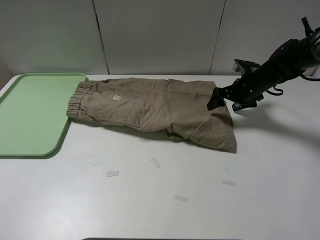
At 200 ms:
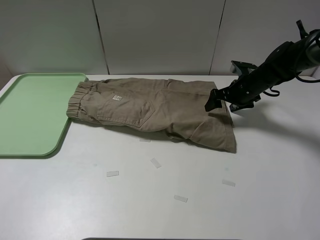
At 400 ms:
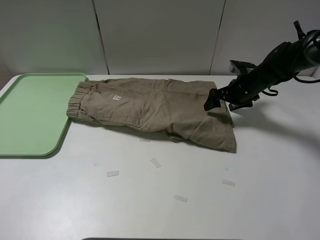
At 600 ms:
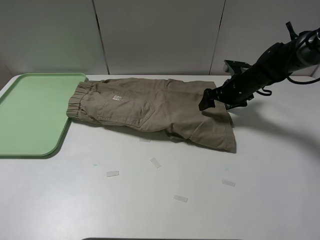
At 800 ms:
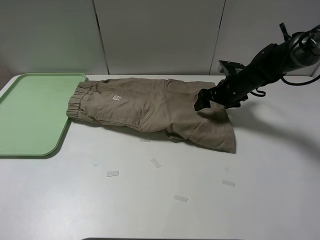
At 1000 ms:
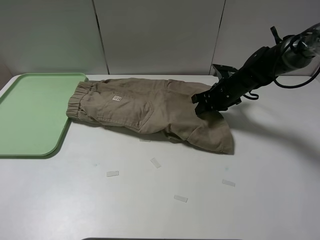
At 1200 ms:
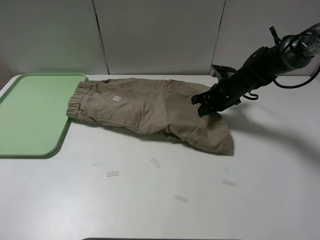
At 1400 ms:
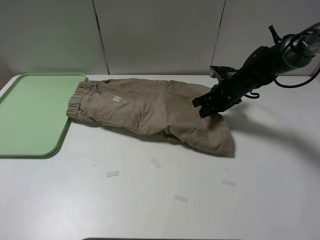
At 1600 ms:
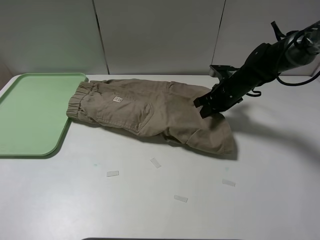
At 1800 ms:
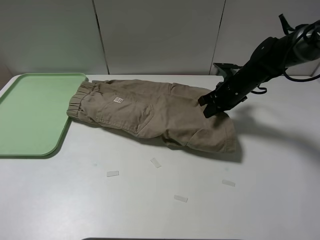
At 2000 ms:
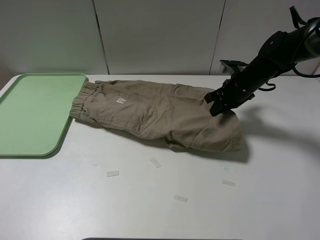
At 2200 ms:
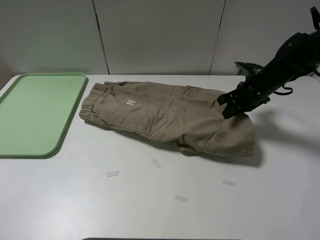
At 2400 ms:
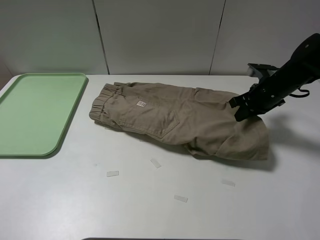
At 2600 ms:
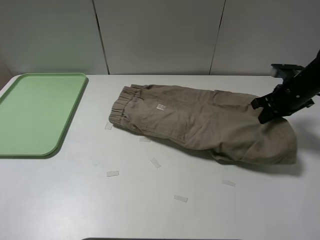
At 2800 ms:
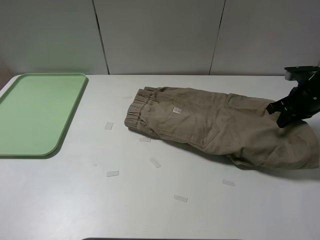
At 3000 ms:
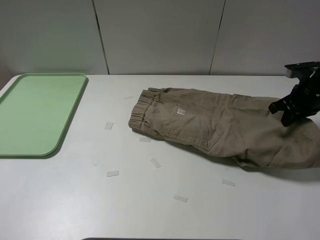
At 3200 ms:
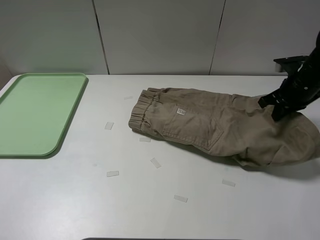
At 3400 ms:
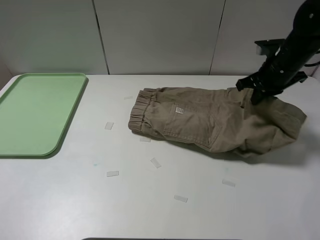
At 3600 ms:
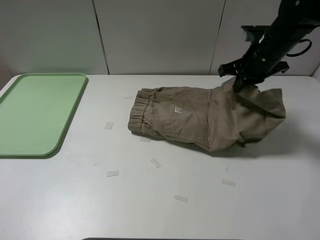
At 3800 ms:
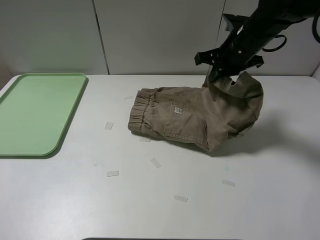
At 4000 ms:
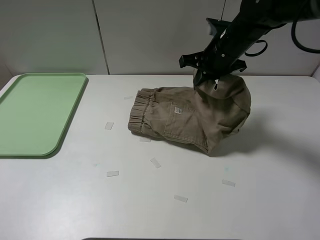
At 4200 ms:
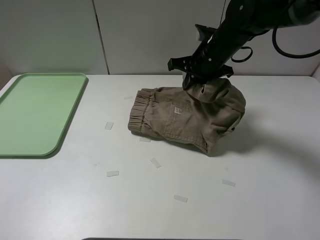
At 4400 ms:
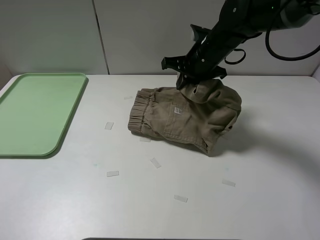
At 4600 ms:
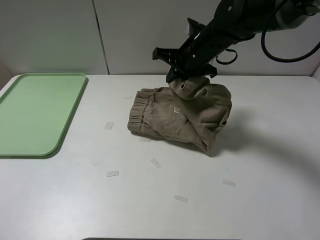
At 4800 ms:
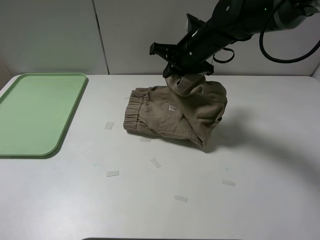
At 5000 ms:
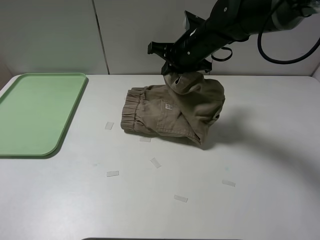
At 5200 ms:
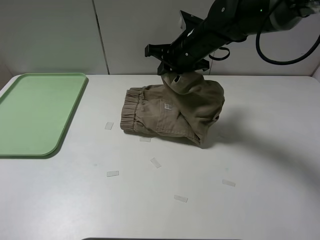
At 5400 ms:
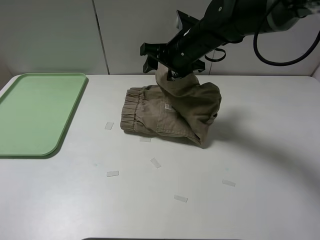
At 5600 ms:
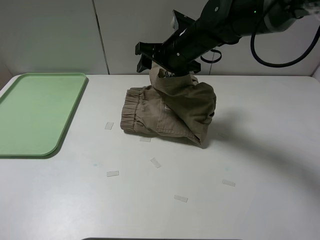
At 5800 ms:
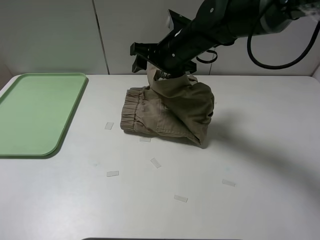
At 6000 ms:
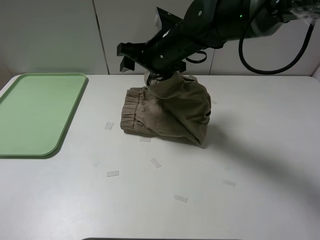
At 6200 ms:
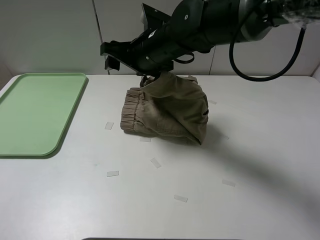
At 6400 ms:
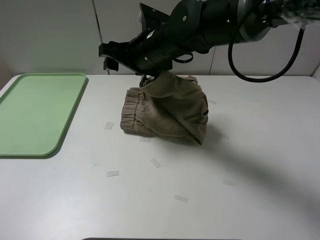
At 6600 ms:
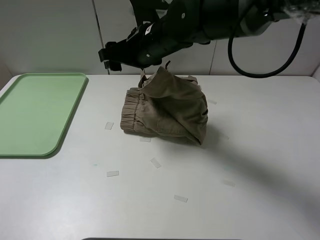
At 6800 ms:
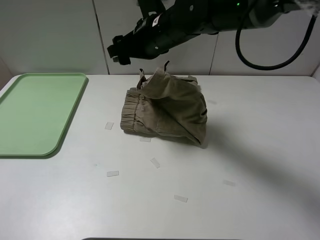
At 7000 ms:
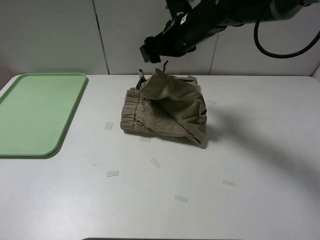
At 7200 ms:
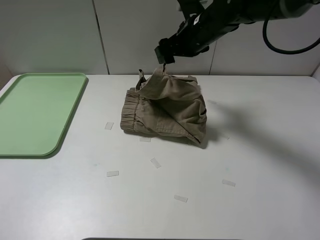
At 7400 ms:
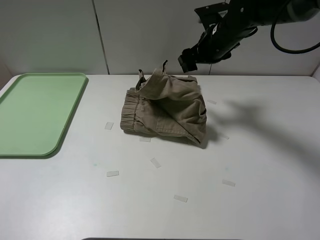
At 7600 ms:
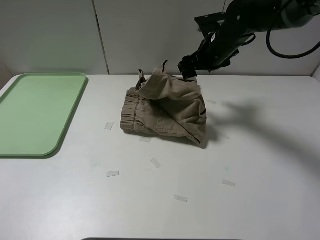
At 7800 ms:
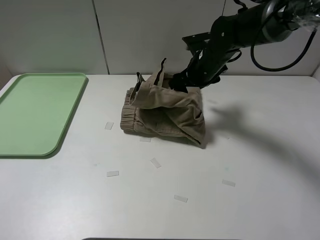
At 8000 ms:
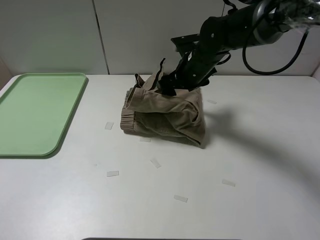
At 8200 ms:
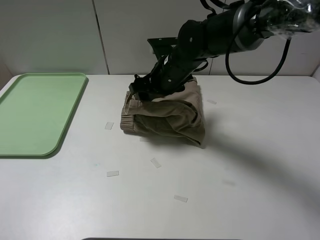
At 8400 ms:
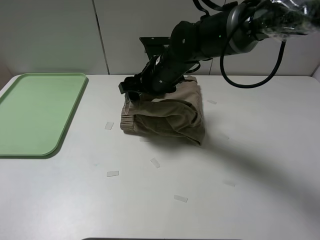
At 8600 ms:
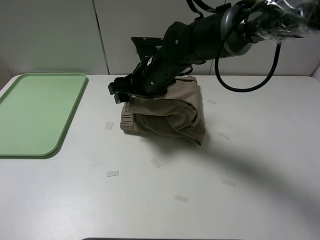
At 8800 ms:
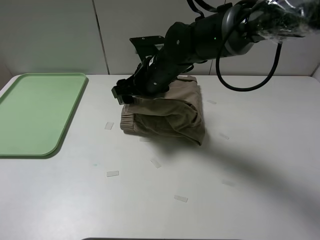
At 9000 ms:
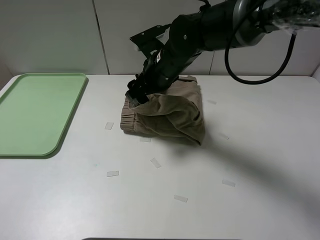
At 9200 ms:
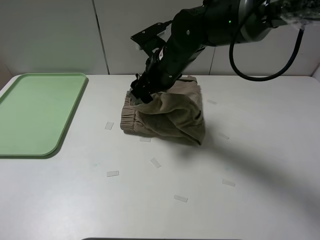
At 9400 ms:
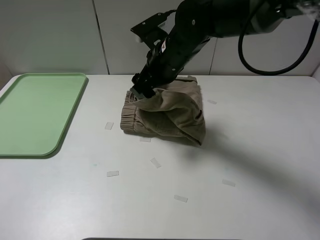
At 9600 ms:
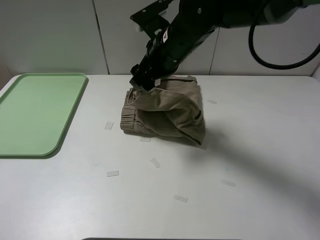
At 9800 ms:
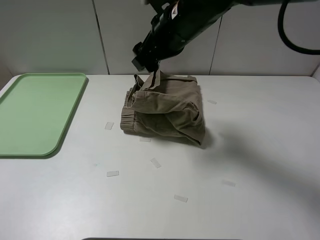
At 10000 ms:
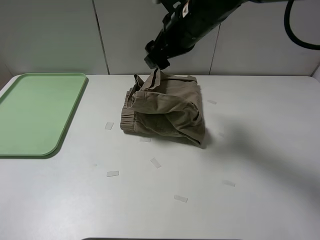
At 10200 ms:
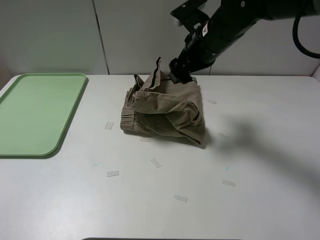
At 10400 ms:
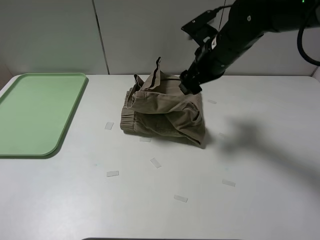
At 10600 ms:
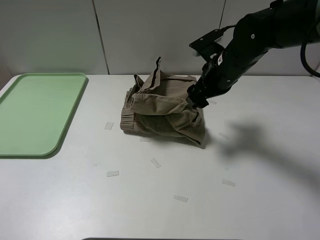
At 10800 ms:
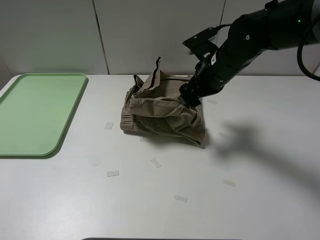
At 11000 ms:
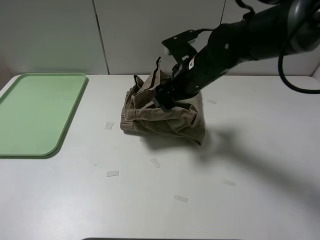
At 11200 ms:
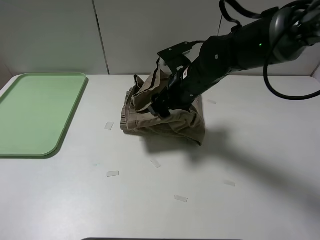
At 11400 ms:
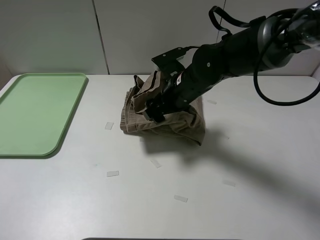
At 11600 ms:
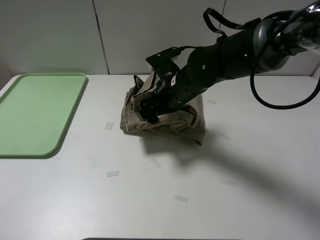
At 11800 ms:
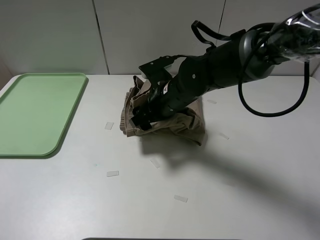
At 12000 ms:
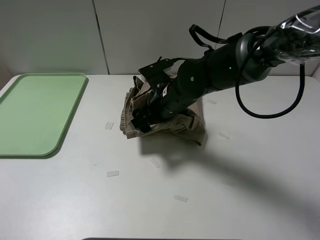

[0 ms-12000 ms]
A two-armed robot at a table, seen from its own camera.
Task of the whole recording: fold the khaki jeans in half with two grippers, then fold them in half again, and use the left claw to place the folded fold khaki jeans on the tray.
0 ms to 1600 ms: The right gripper goes some 5 cm to the left, and closes its fingers.
1600 ms to 3000 ms: The right gripper travels to the right, backward and upward by about 15 cm.
3000 ms to 4400 ms: The right gripper shifts about 25 cm to the left.
4400 ms to 6000 ms: The right gripper heads to the left, covering roughly 10 cm, and opens its fingers.
6000 ms to 7600 ms: The right gripper is displaced to the right and forward by about 15 cm.
7600 ms to 9000 ms: The right gripper travels to the left and backward by some 15 cm.
9000 ms to 10400 ms: The right gripper moves to the right, approximately 10 cm.
10400 ms to 12000 ms: The right gripper heads to the left and downward, covering roughly 10 cm.

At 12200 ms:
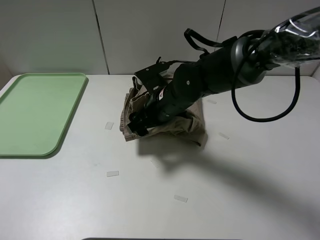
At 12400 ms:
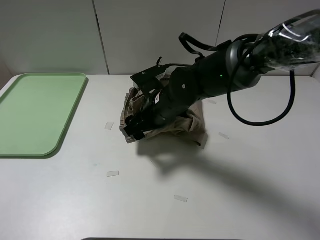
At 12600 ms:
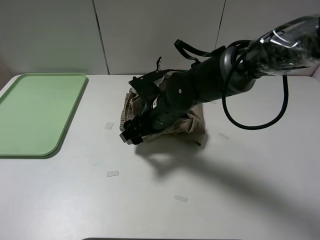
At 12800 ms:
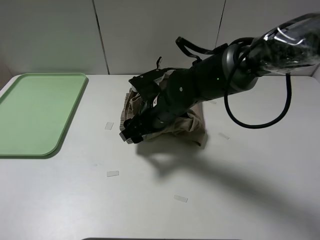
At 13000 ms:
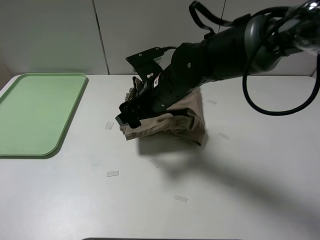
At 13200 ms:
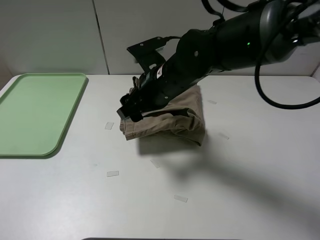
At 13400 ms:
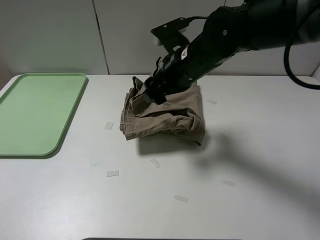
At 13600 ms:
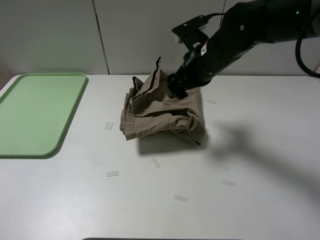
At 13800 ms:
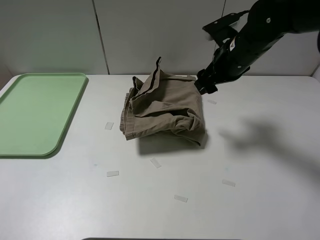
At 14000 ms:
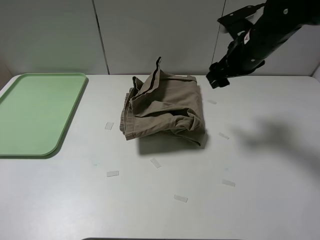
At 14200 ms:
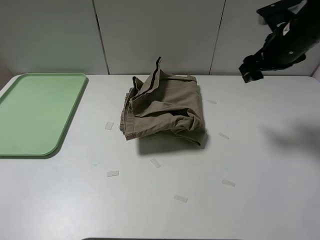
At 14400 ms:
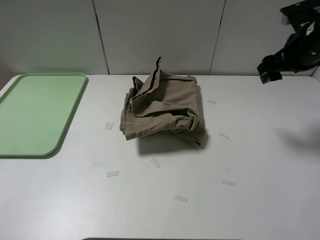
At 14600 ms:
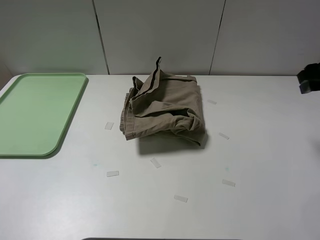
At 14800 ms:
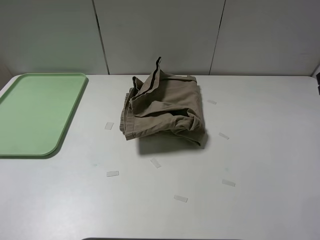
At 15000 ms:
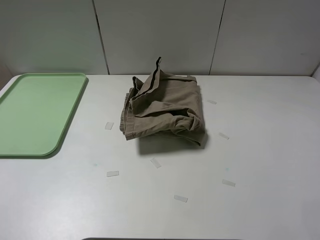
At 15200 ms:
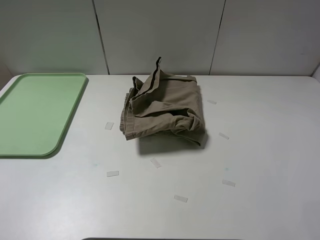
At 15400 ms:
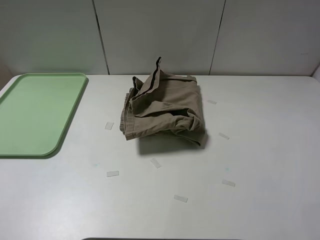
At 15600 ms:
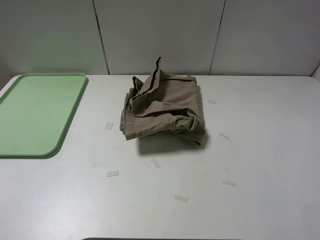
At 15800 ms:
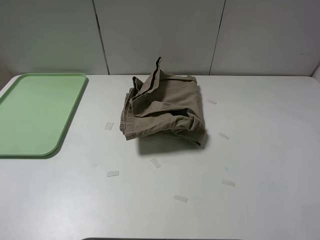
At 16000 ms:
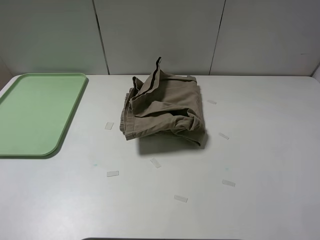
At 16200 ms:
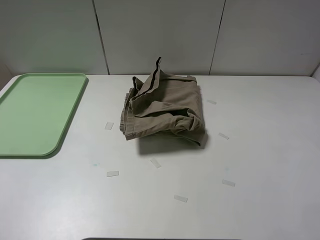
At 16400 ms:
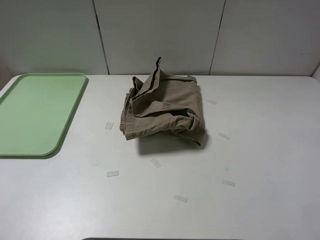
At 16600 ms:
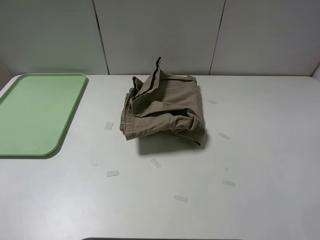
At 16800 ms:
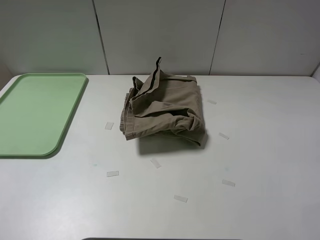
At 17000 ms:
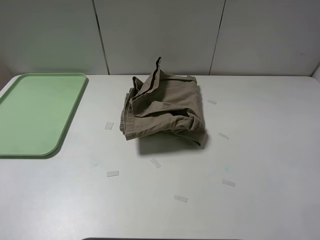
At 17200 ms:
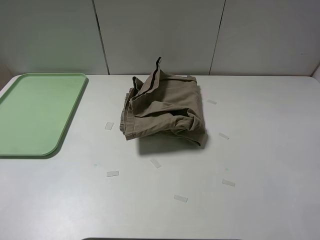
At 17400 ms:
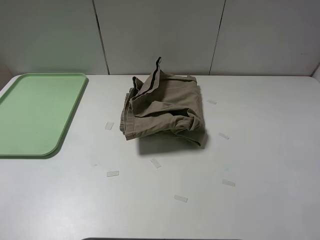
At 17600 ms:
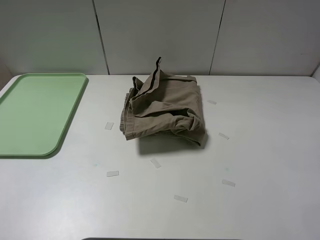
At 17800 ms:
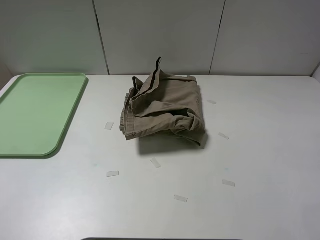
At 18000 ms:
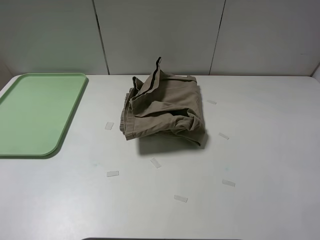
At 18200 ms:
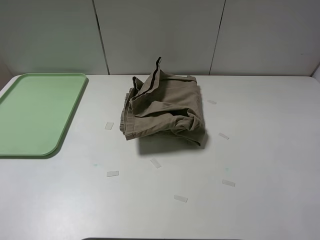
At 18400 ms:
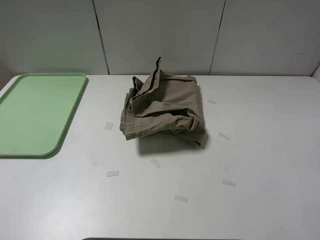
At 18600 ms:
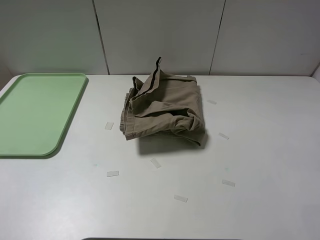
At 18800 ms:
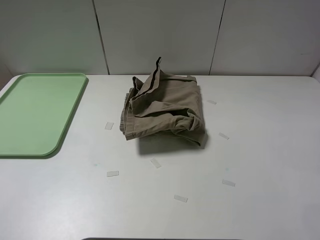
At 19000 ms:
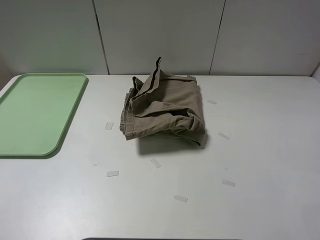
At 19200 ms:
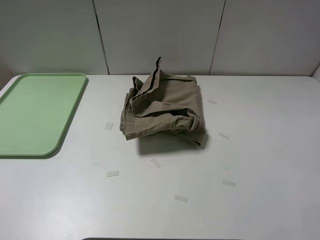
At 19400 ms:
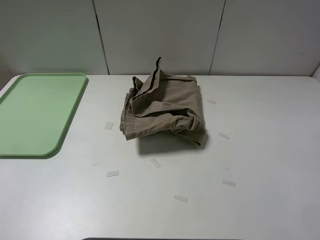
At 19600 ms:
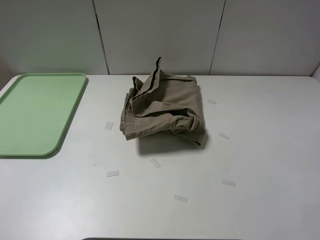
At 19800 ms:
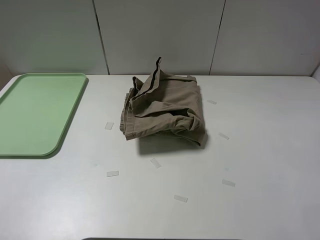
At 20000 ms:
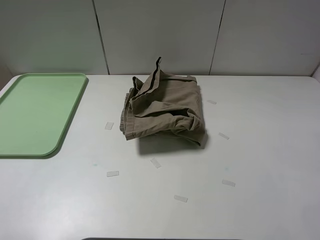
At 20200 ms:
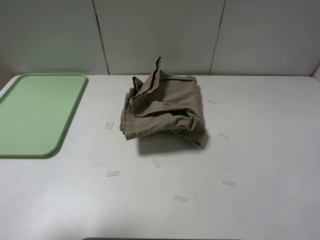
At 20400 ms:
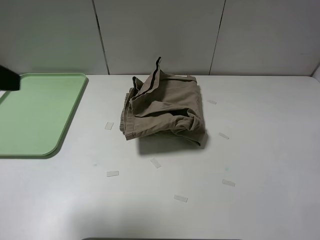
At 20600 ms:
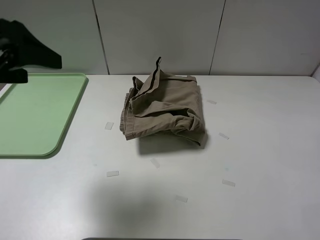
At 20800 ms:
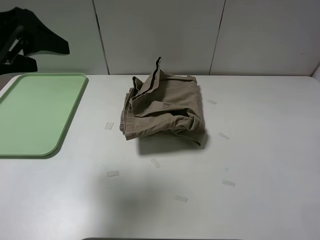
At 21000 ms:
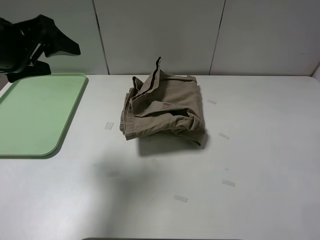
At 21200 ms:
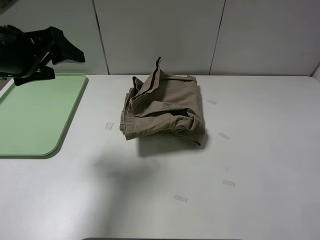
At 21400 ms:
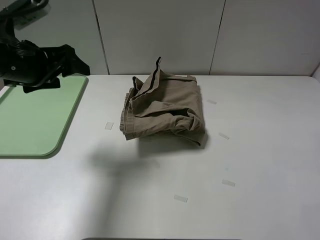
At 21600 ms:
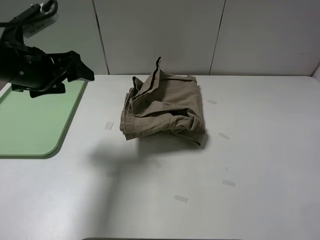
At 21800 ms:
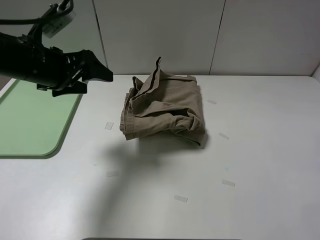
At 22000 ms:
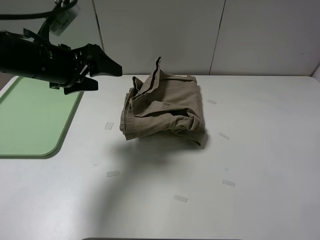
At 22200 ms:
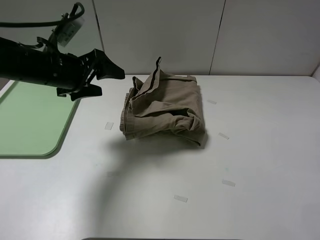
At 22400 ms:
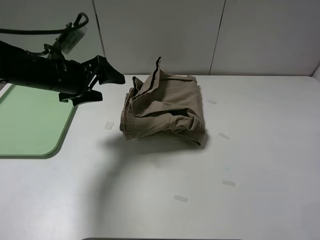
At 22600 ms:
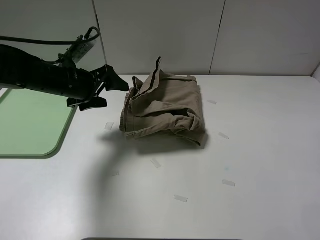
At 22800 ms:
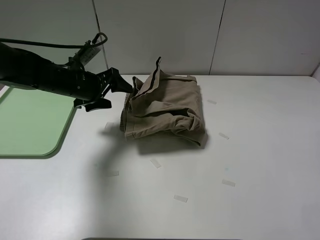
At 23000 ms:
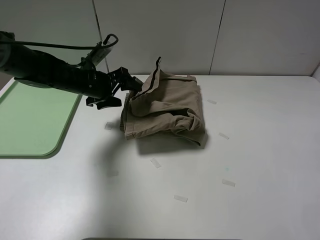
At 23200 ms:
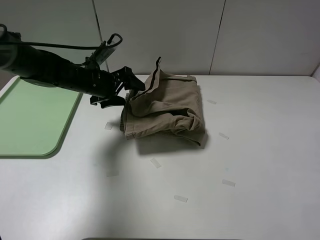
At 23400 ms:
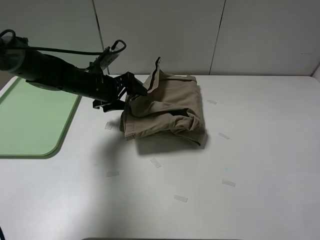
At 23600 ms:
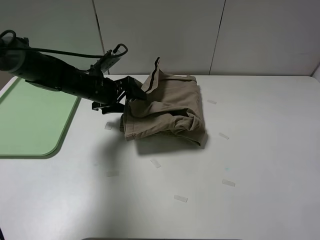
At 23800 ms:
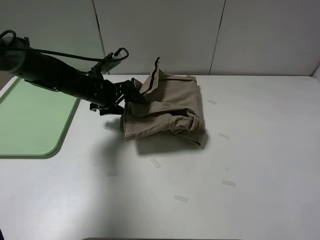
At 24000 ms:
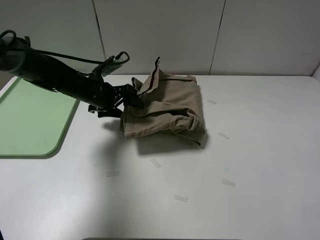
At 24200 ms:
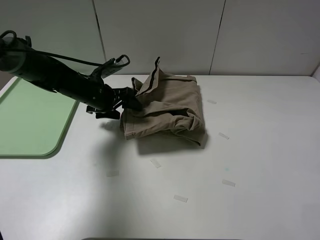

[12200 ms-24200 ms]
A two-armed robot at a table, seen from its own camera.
Task of the whole recording: fold the khaki jeans in half with two grippers, then fold them in half again, and use the left claw to place the folded fold khaki jeans on the tray.
12200 ms to 13800 ms: The right gripper is displaced to the right and upward by roughly 15 cm.
13800 ms to 15200 ms: The right gripper is displaced to the right, backward and upward by roughly 25 cm.
19800 ms to 21200 ms: The left gripper moves forward, approximately 25 cm.
21200 ms to 22600 ms: The left gripper moves downward and forward, some 15 cm.
22600 ms to 24200 ms: The left gripper is displaced downward by some 5 cm.
